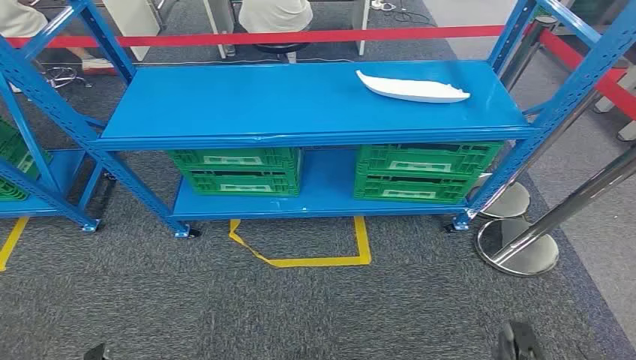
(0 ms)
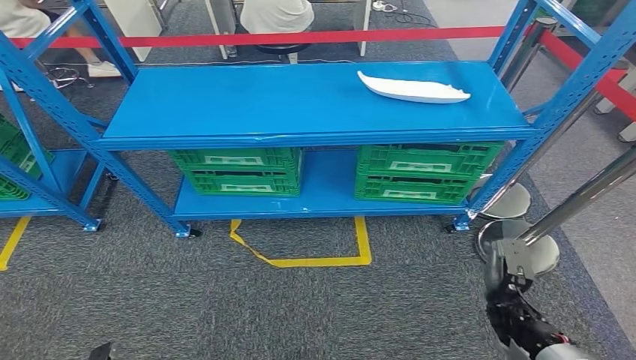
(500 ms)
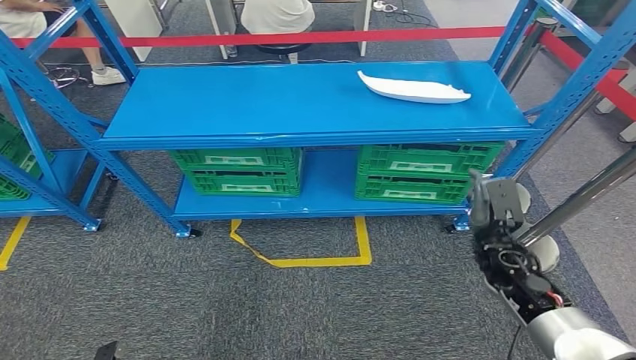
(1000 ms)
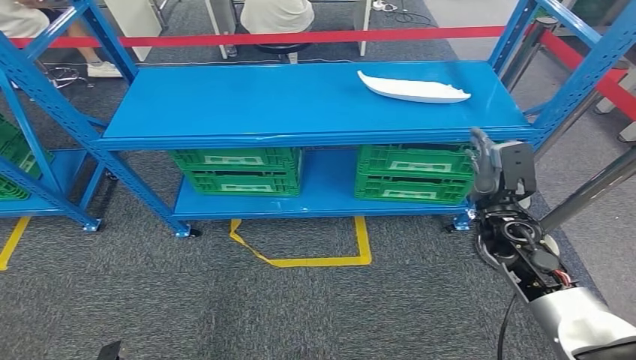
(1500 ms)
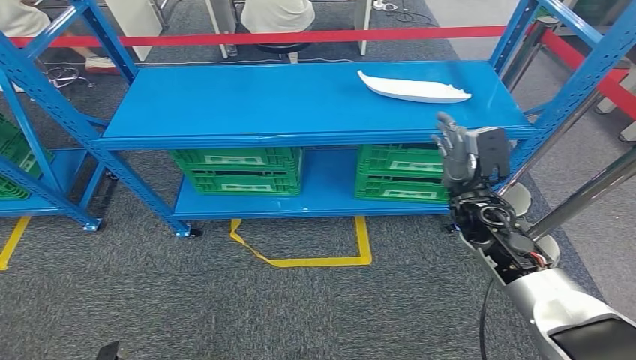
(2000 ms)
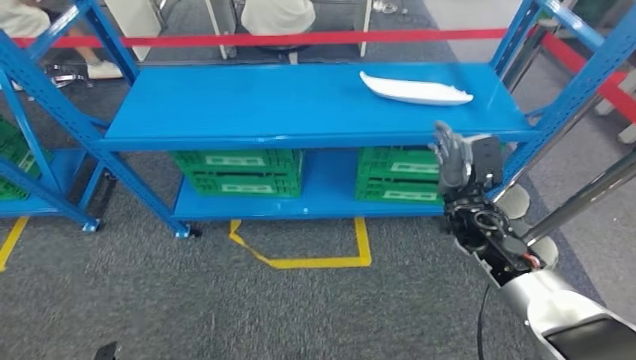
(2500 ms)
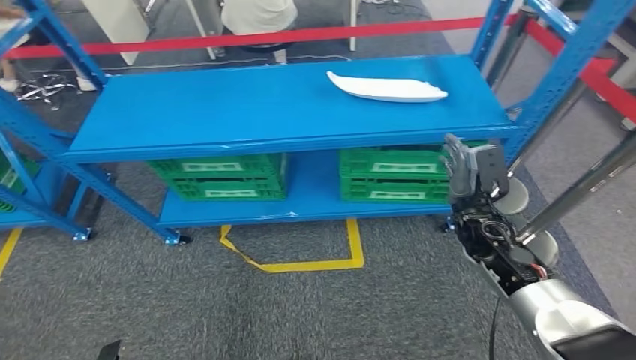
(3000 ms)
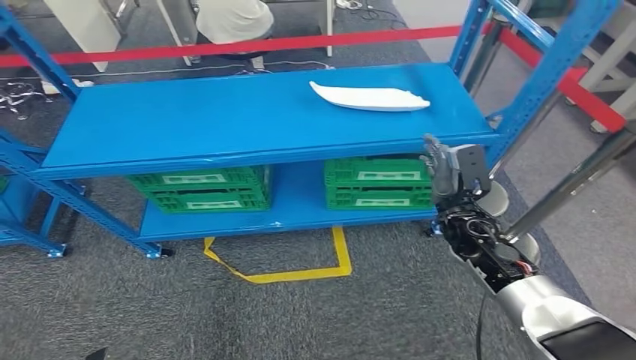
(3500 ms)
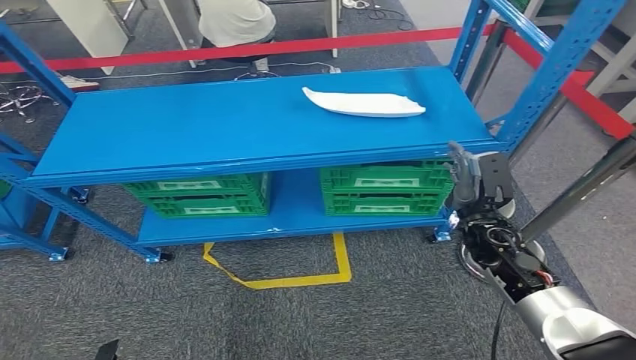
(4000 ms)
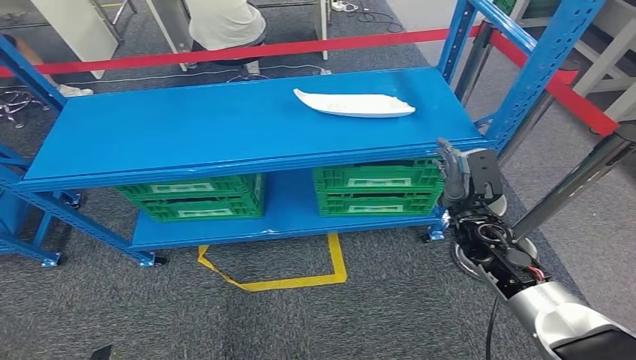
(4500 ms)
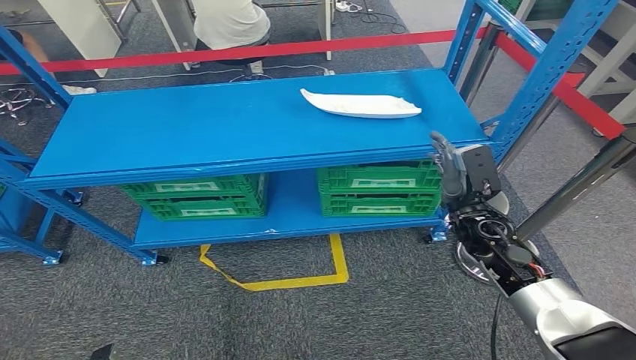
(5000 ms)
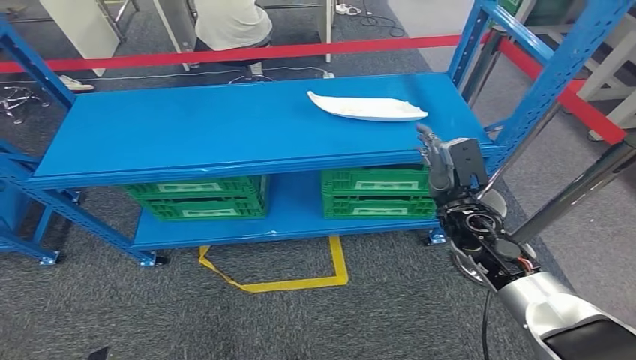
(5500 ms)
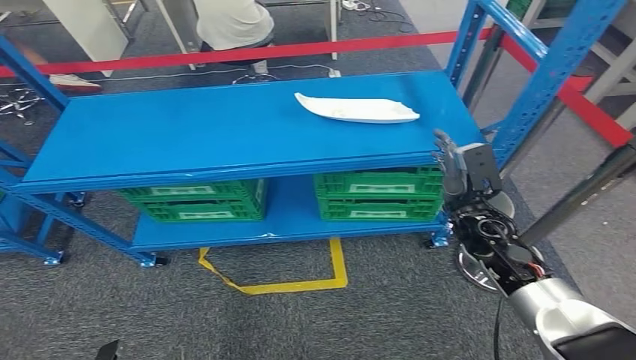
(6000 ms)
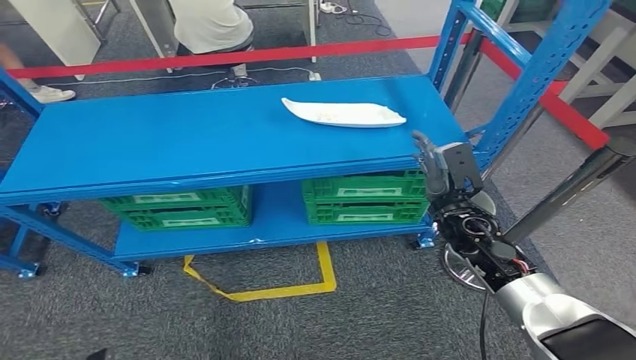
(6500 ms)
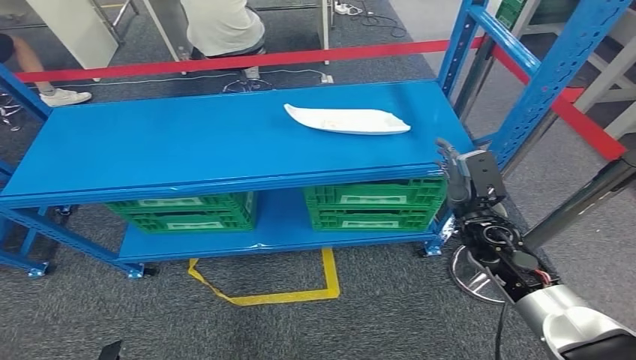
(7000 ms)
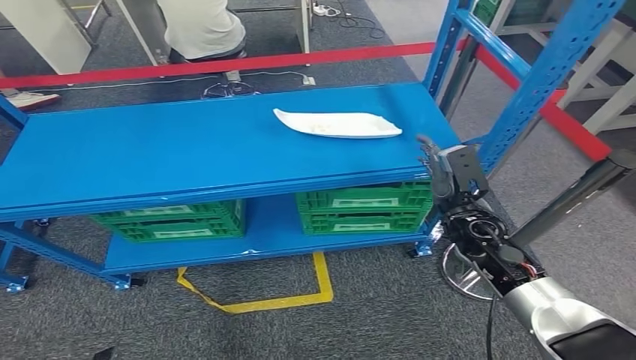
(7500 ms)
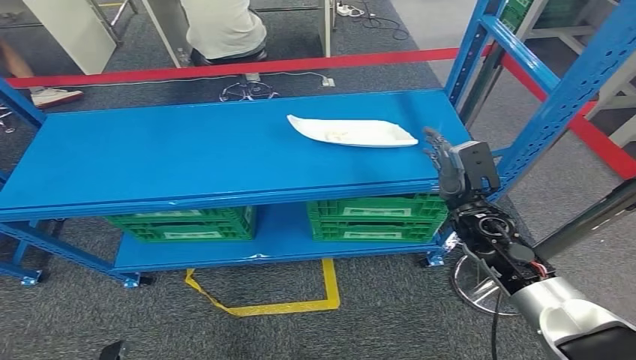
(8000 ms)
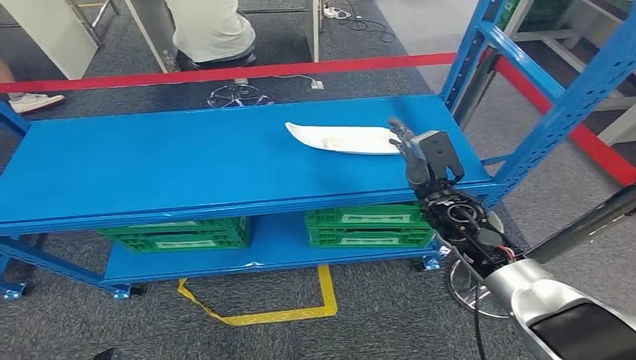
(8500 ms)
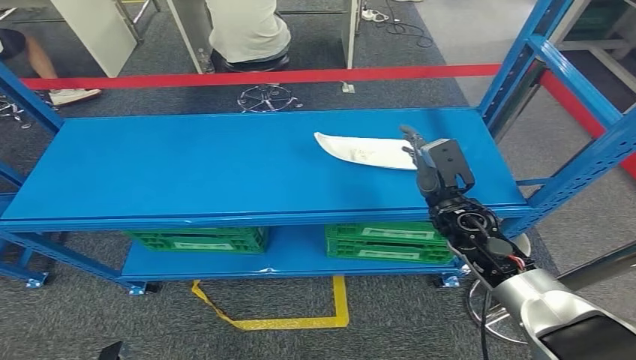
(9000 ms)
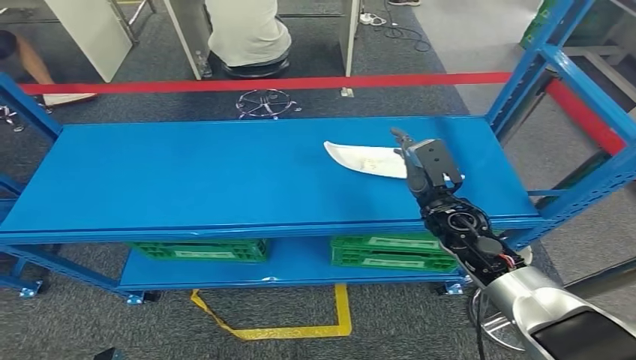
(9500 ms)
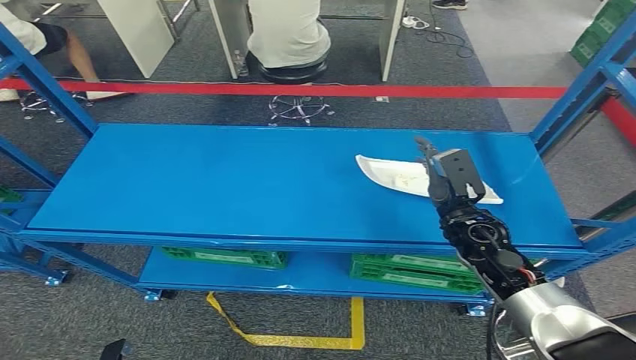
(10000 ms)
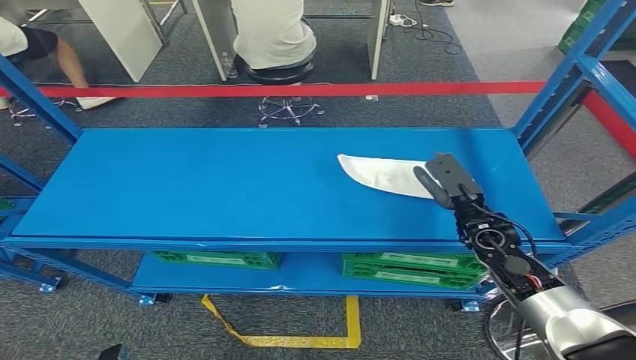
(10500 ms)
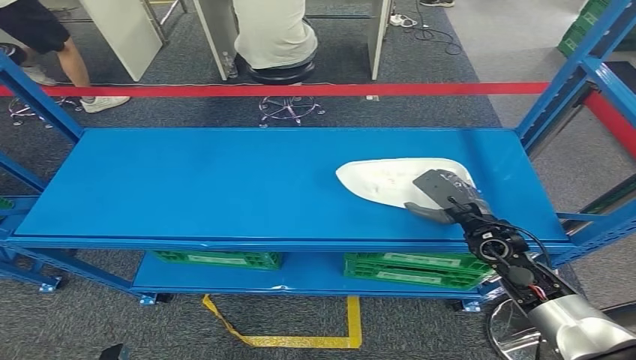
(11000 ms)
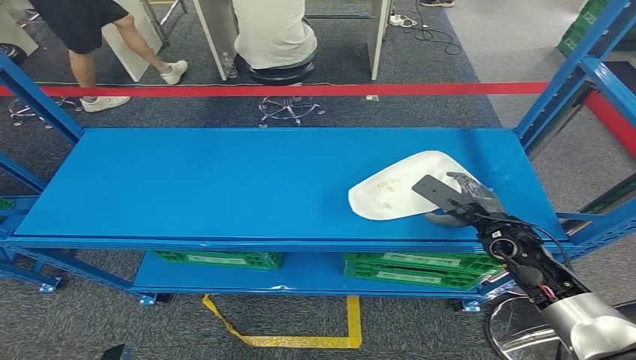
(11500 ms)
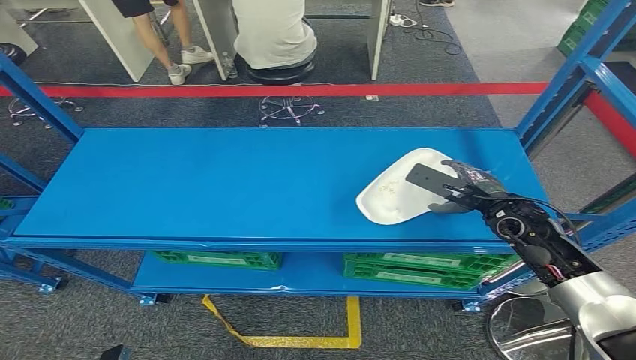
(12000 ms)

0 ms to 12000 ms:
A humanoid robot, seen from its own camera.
4000 ms to 6000 ms: The hands make only small movements.

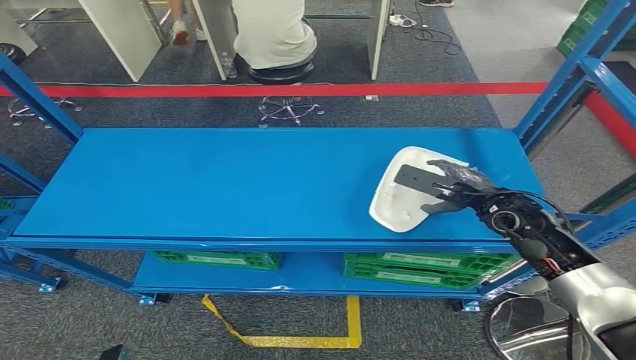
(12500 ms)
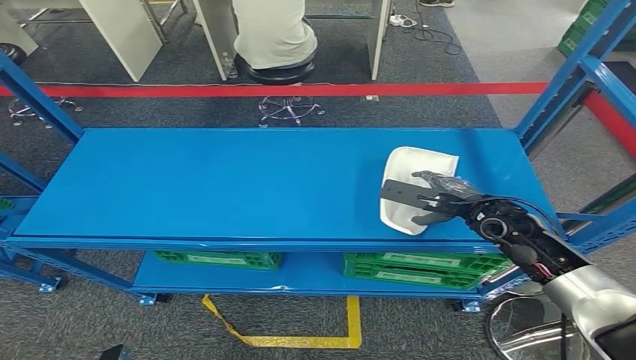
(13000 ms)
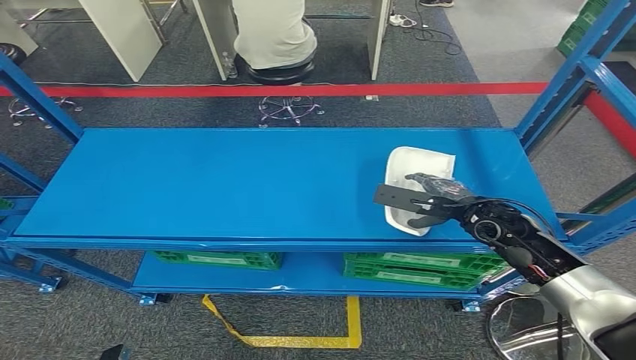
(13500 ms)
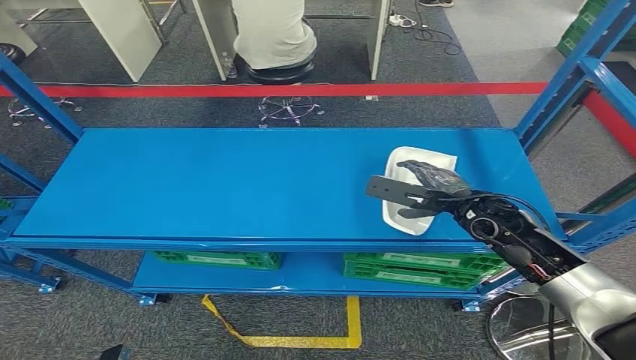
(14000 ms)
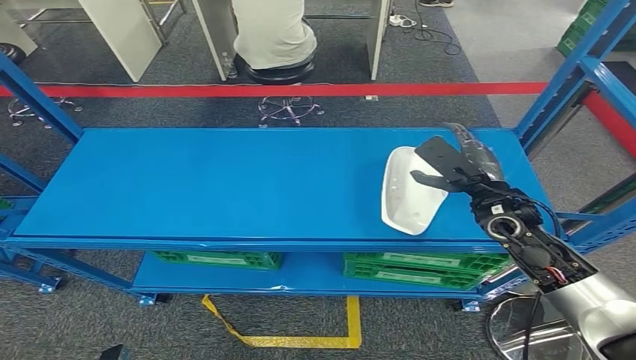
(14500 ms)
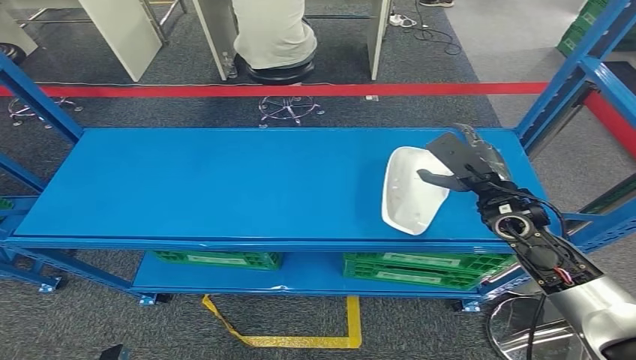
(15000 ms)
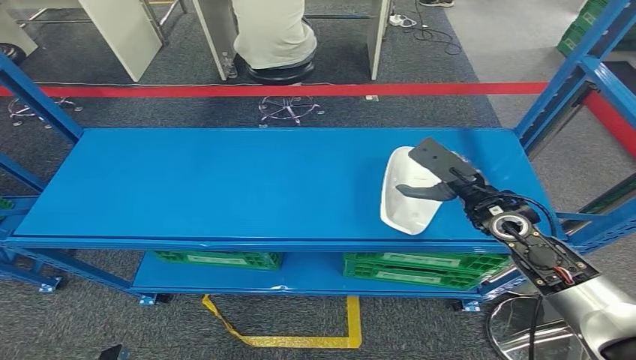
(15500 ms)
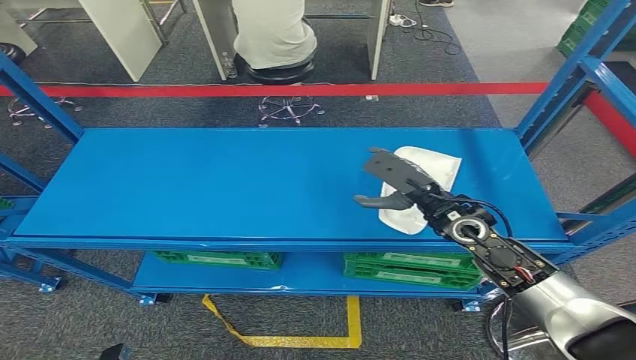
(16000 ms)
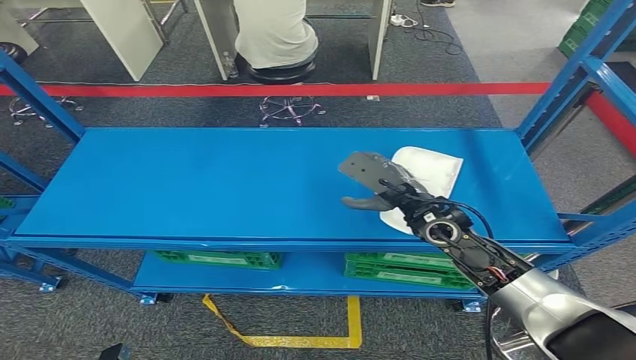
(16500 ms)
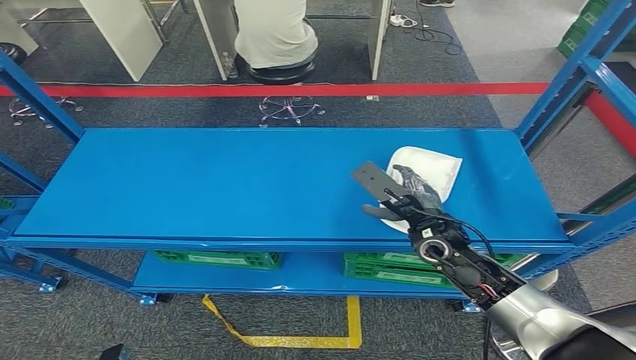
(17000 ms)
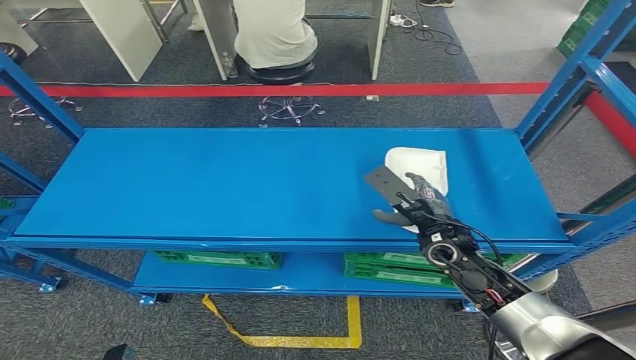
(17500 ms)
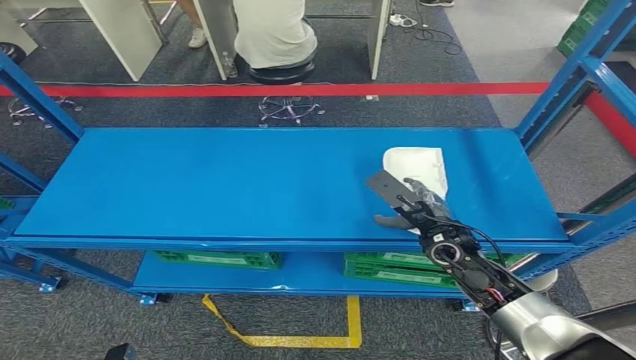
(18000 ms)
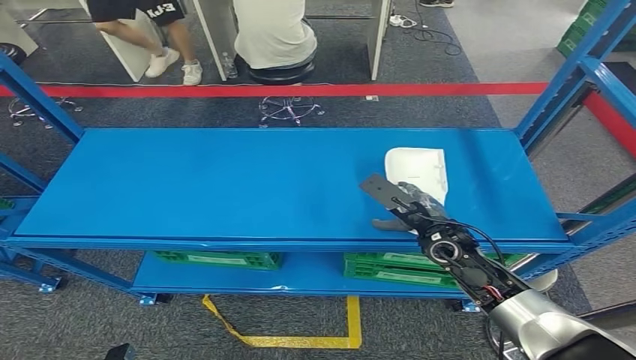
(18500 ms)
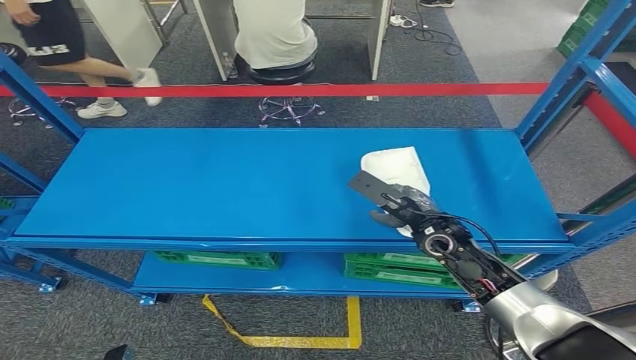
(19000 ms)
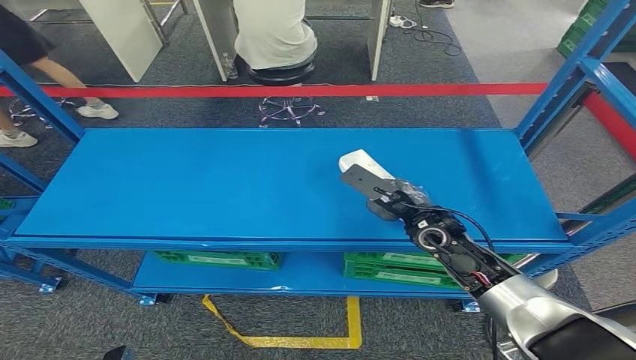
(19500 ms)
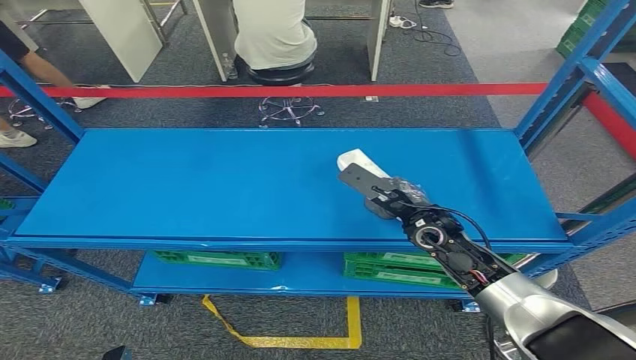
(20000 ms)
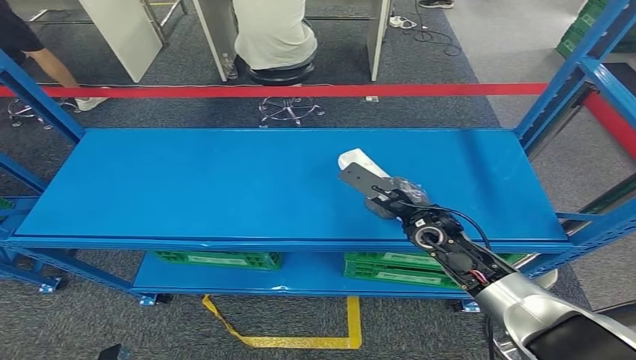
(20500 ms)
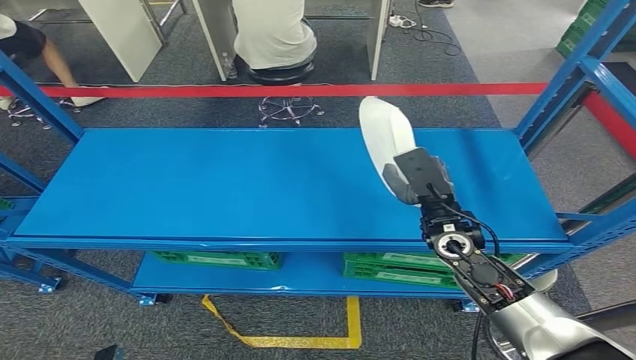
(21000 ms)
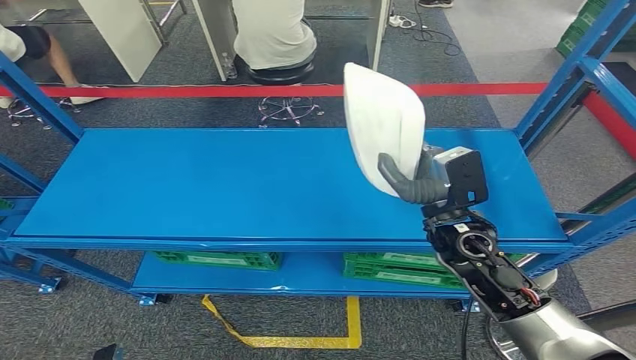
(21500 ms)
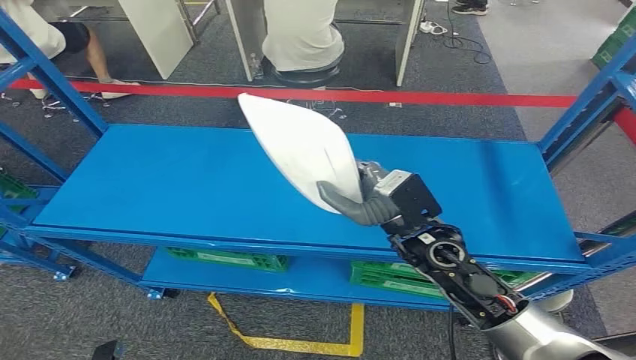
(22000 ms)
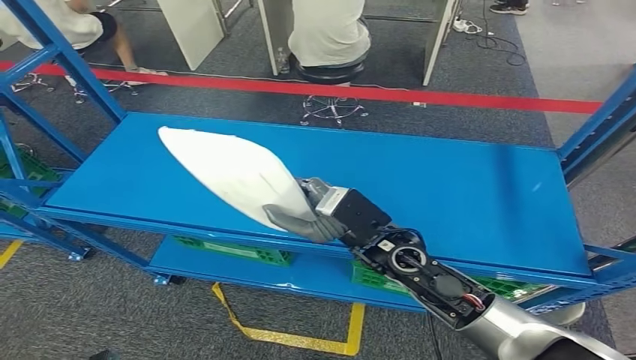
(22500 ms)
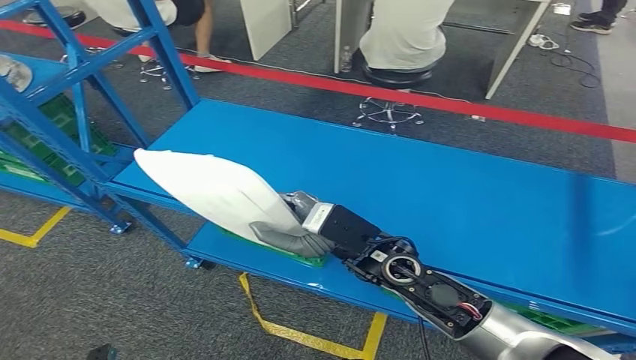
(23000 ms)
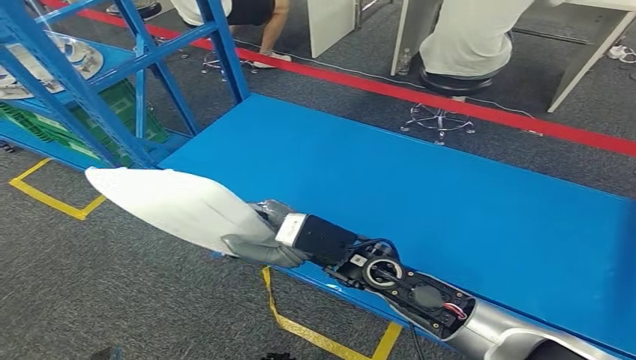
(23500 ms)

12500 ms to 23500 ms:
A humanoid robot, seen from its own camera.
Step, 12500 ms to 21000 ms: Pick up the small component from the shelf.
14500 ms to 16000 ms: The right hand travels to the left by some 5 cm.
16000 ms to 18000 ms: The right hand is displaced downward by about 5 cm.
18000 ms to 20000 ms: The hands move only a little.
20000 ms to 21500 ms: The right hand moves about 5 cm.
